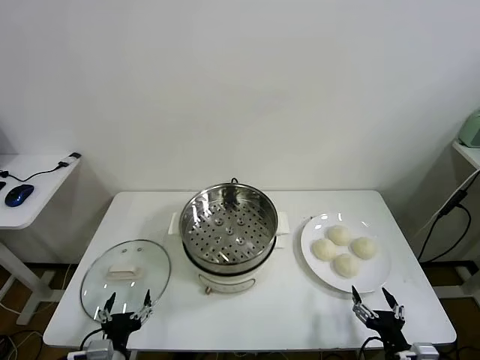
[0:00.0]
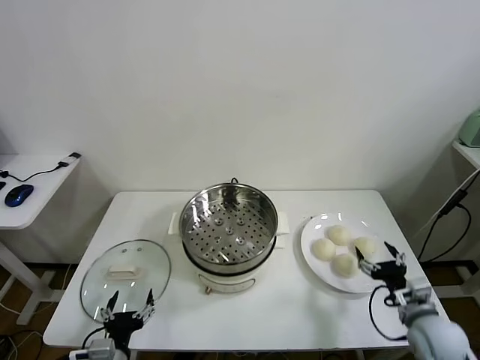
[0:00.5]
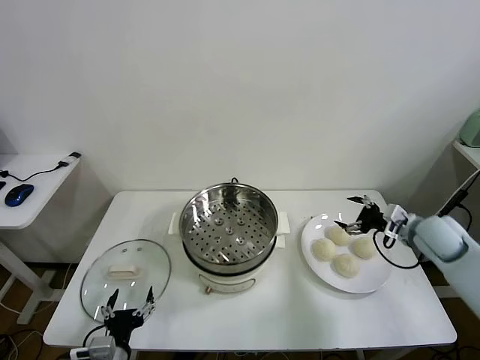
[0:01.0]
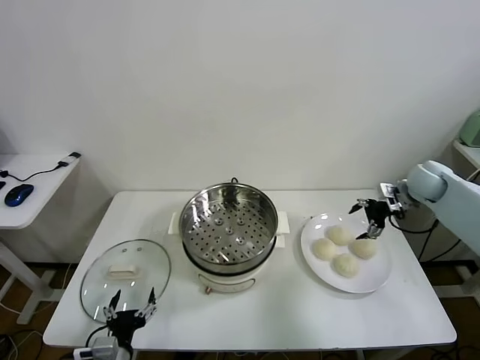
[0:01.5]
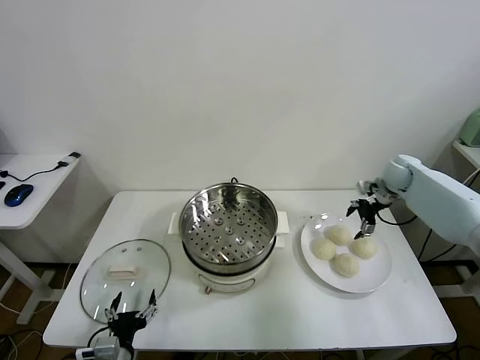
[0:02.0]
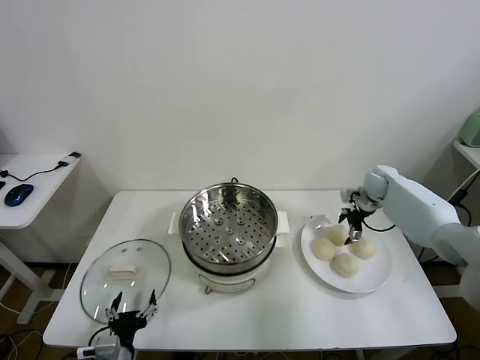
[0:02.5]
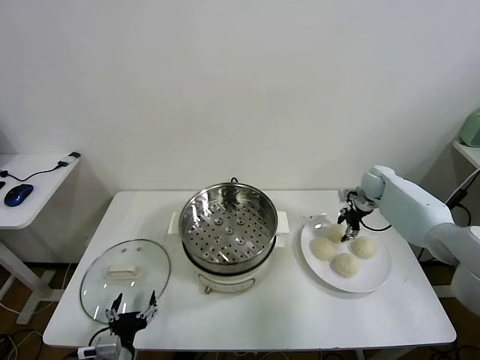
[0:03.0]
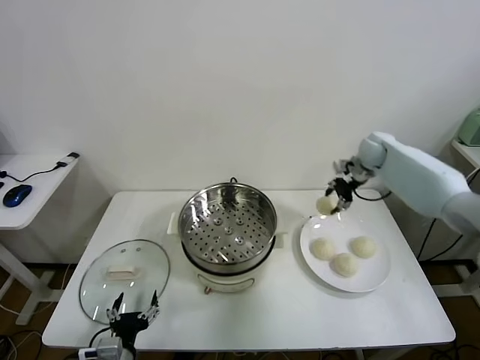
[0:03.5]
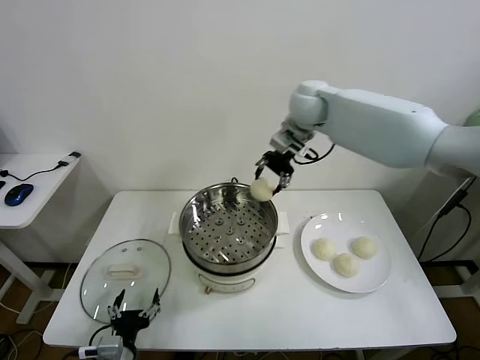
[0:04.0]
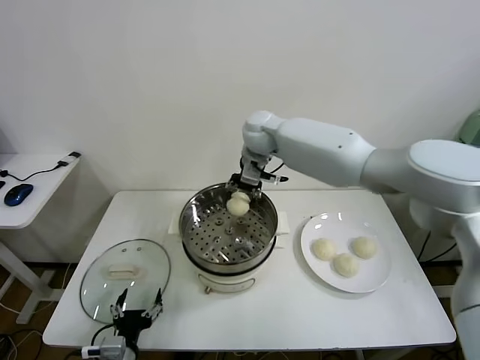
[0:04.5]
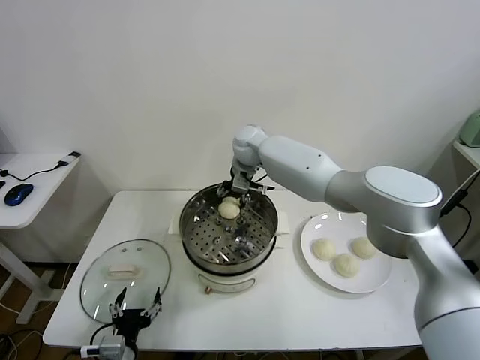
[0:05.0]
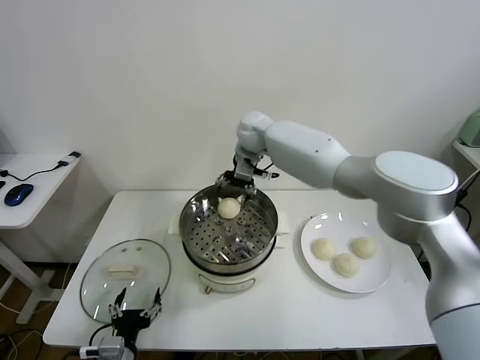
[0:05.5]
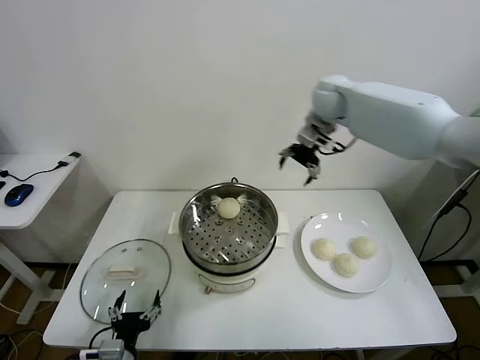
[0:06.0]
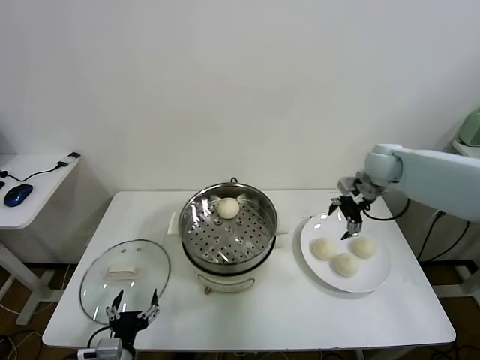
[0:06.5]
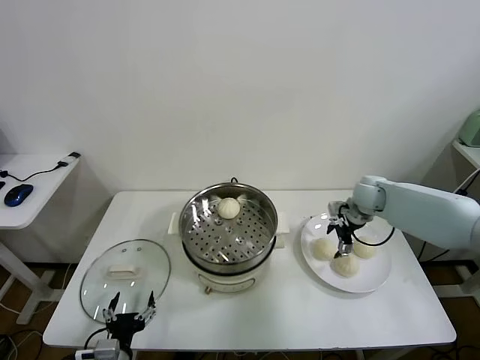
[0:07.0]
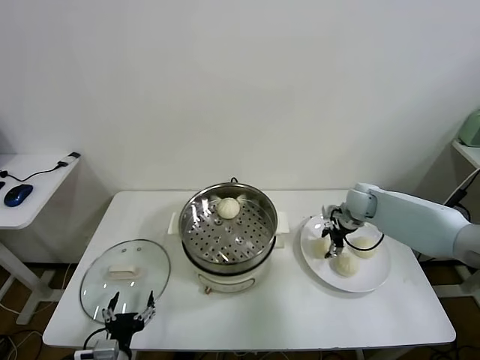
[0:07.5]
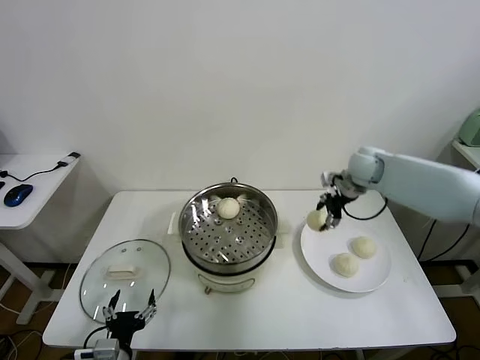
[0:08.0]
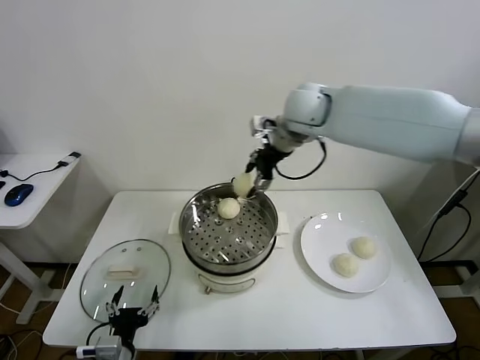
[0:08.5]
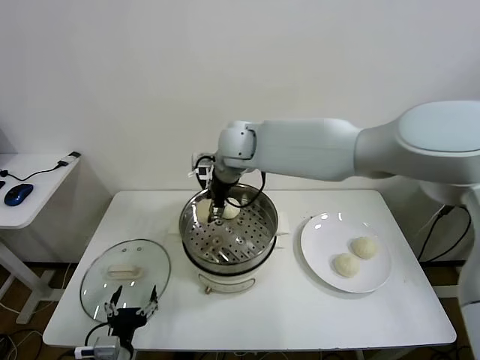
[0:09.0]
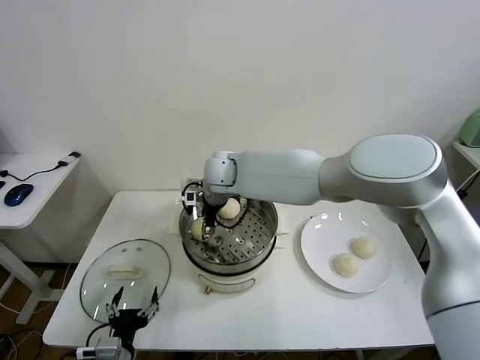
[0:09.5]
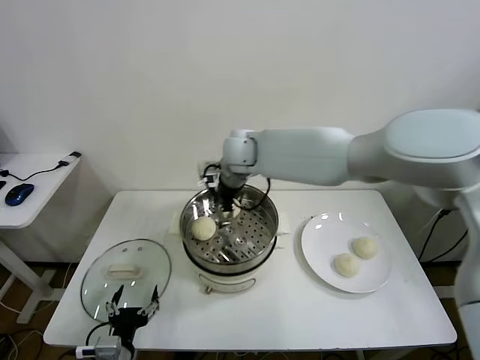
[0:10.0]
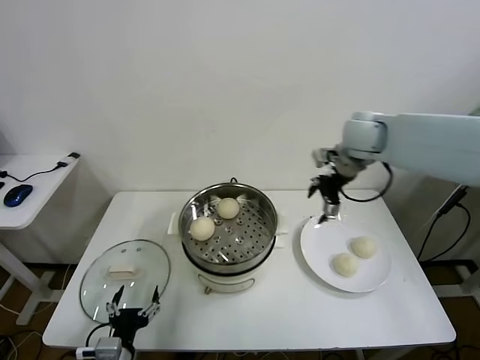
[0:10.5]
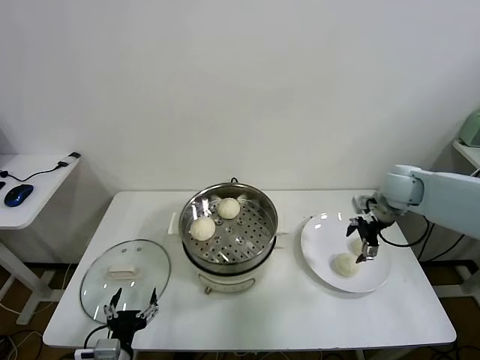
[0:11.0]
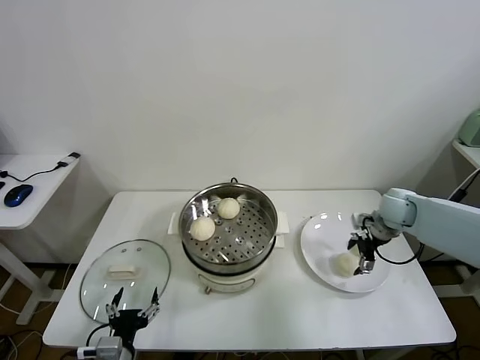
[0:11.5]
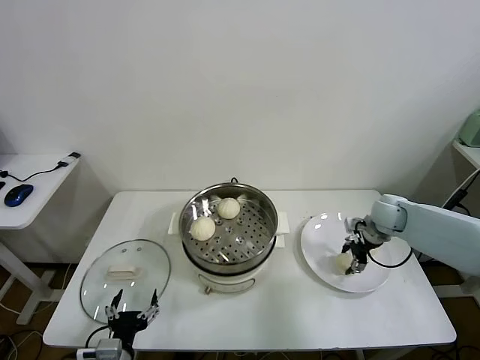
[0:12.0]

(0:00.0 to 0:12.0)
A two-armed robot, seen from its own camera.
Task of the whole recording: take steamed baozi put them in steamer.
Step, 0:00.0 - 0:03.0: Grasp the baozi in the plate with right gripper.
Step, 0:03.5 - 0:05.0: Place the baozi on the steamer with right gripper.
Step, 0:06.0 - 0:07.5: Grasp the baozi in the plate with right gripper.
Step, 0:08.0 - 0:09.5: Place the baozi on the steamer with right gripper.
0:02.0 - 0:04.0: The right gripper travels to the left and upward by roughly 35 cm, and closes.
0:04.0 - 0:06.0: The right gripper moves to the right, some 15 cm, and opens its fingers.
0:06.0 - 0:08.0: The right gripper goes roughly 10 cm downward, and closes.
0:08.0 - 0:10.0: The right gripper shifts some 25 cm to the left, and opens.
0:10.0 - 0:12.0: The right gripper shifts roughly 40 cm to the right and downward, and closes.

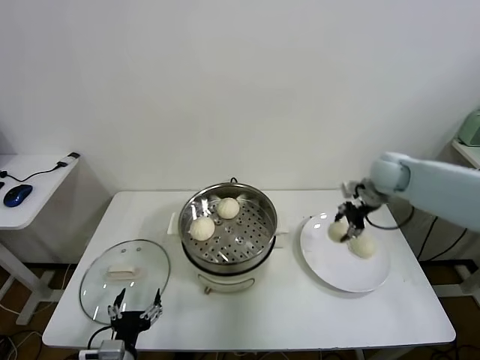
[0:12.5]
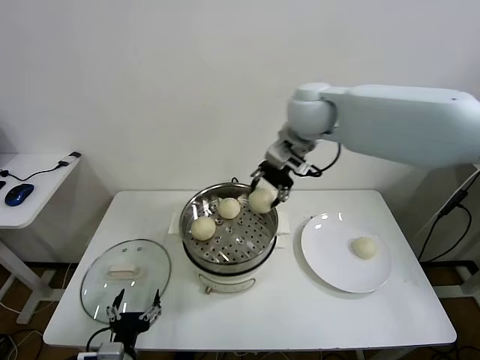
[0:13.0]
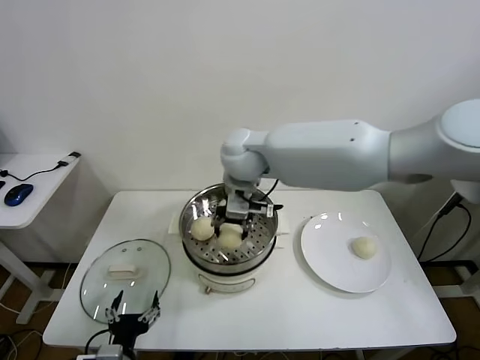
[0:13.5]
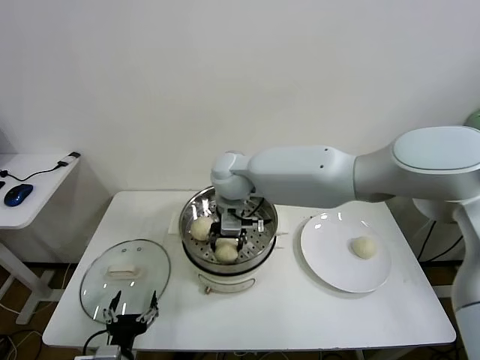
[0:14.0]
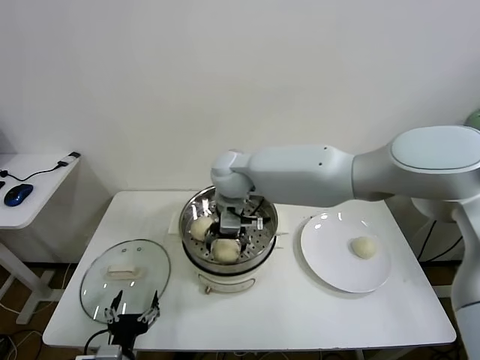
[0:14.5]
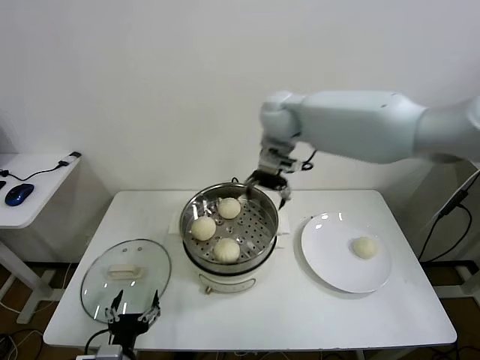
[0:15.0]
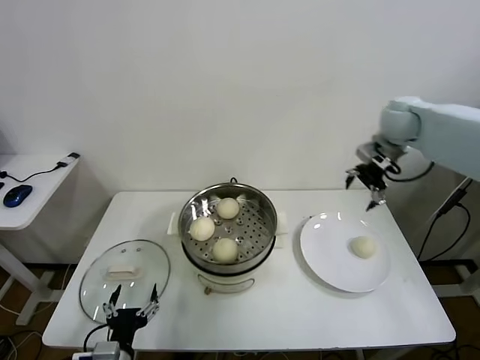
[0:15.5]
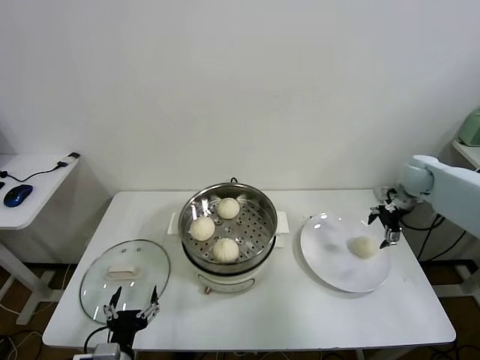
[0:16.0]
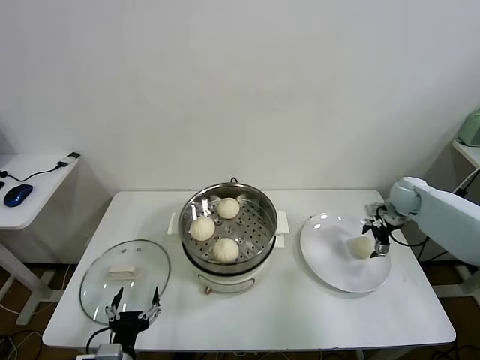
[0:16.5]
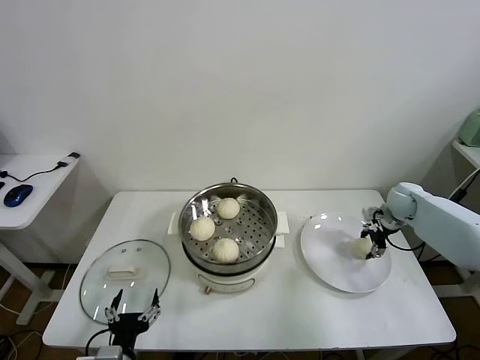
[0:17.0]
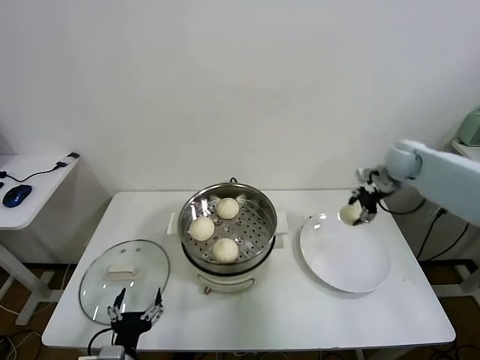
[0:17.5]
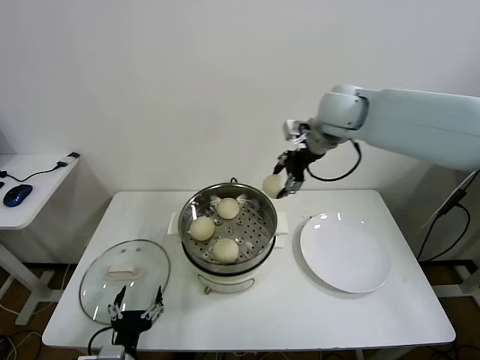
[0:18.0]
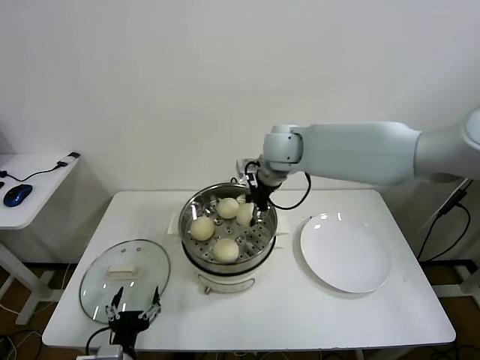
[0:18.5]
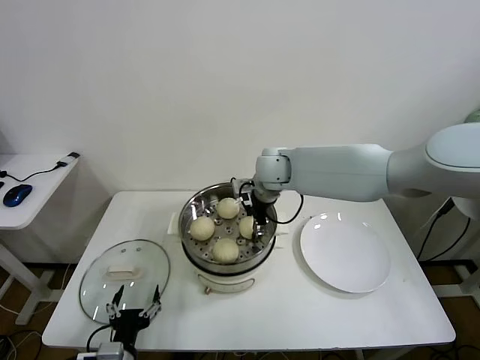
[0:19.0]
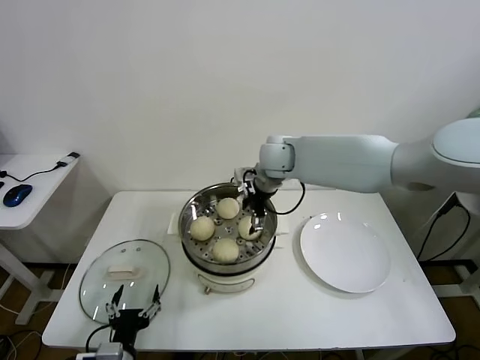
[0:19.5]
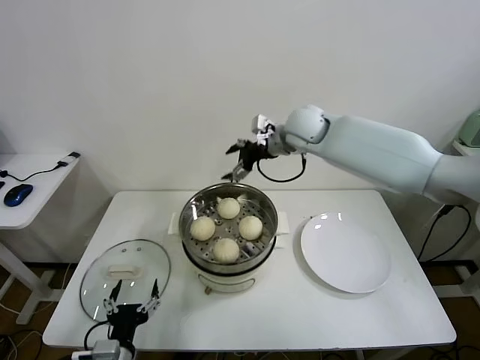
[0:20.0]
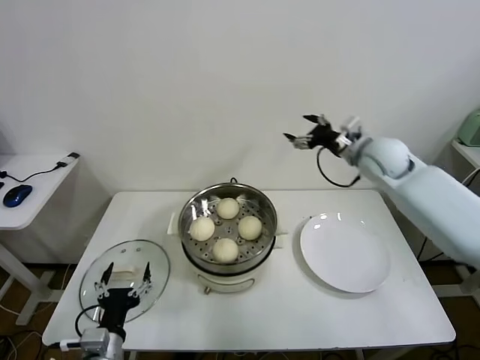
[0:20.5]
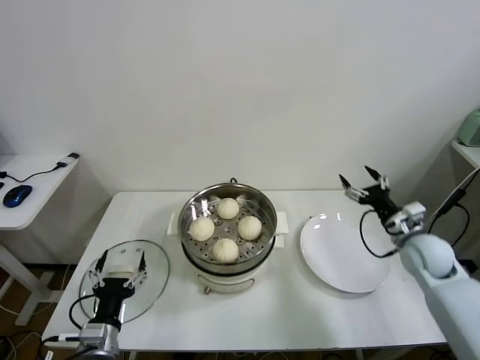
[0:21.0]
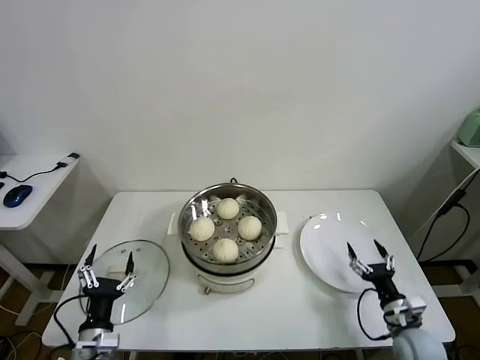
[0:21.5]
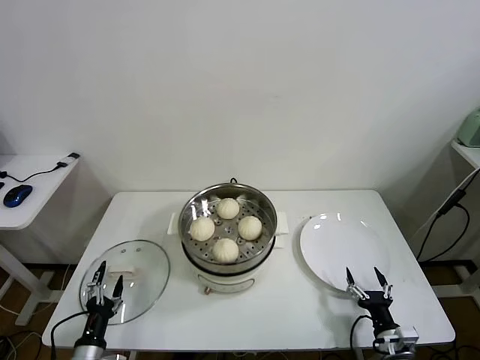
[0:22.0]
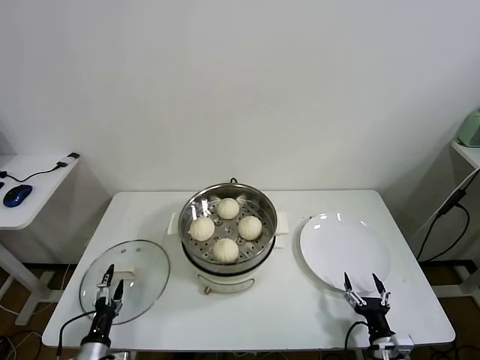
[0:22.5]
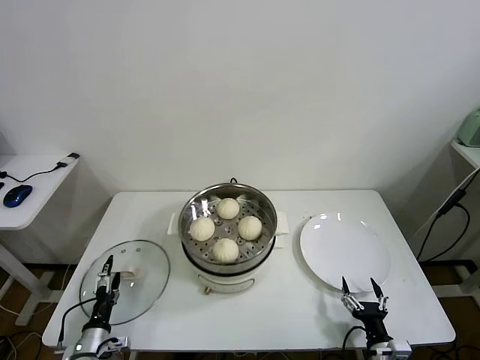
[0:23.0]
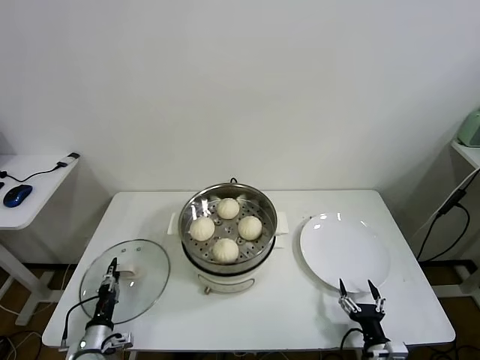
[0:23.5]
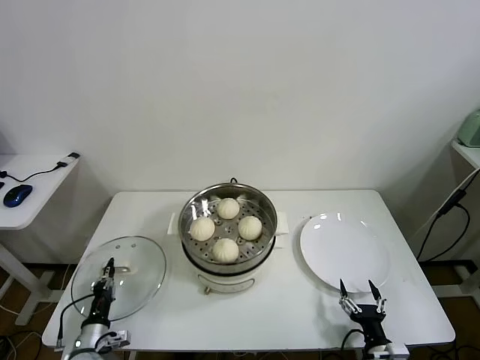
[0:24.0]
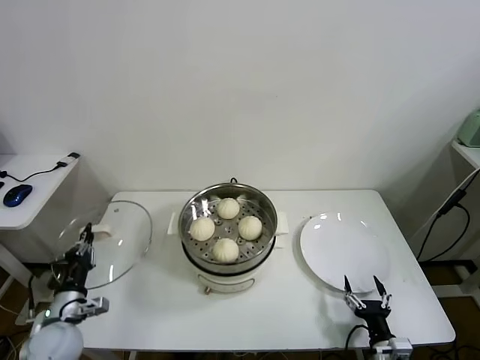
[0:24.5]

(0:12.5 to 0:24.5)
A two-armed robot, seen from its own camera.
Task of the whole recording: take steamed baozi put them in steamer.
Step, 0:12.5 - 0:14.5: Place the baozi on the steamer with right gripper.
Step, 0:15.0 - 0:17.0: Grasp the baozi in the plate with right gripper.
Step, 0:17.5 - 0:19.0: Place the baozi on the steamer with right gripper.
Step, 0:20.0 - 0:23.5: Grasp the pot lid with left gripper.
0:12.5 - 0:14.5: The right gripper heads to the left, covering about 35 cm, and opens.
0:14.5 - 0:16.5: The right gripper travels to the right by about 50 cm.
0:16.5 - 0:18.5: The right gripper moves to the left and upward, about 40 cm, and closes.
0:18.5 - 0:20.5: The right gripper is displaced to the right by some 20 cm, and opens.
0:20.5 - 0:22.5: The left gripper is displaced downward and to the left by approximately 15 cm; the right gripper is displaced downward and backward by some 50 cm.
0:22.5 - 0:24.5: The left gripper moves upward and forward, some 10 cm, and closes up.

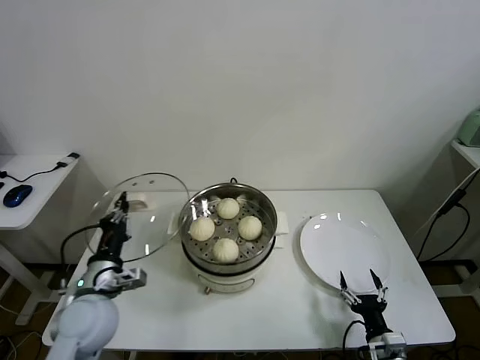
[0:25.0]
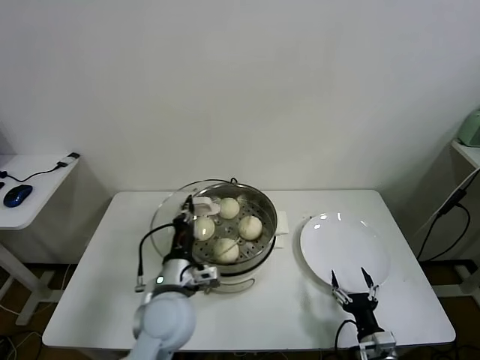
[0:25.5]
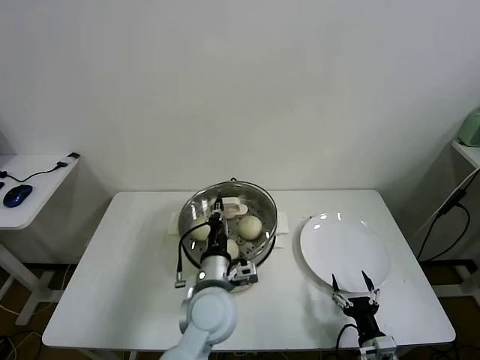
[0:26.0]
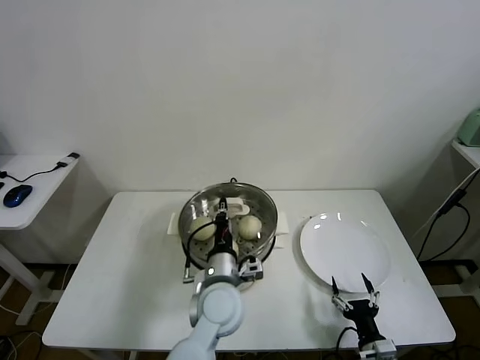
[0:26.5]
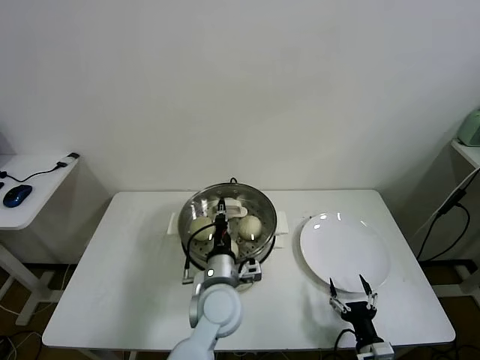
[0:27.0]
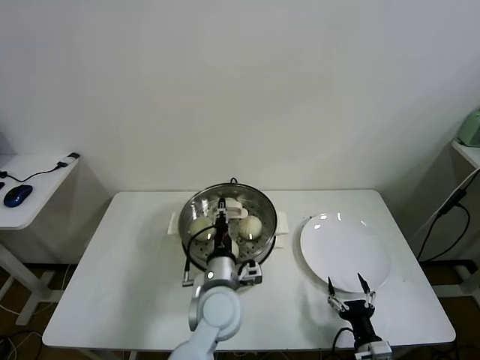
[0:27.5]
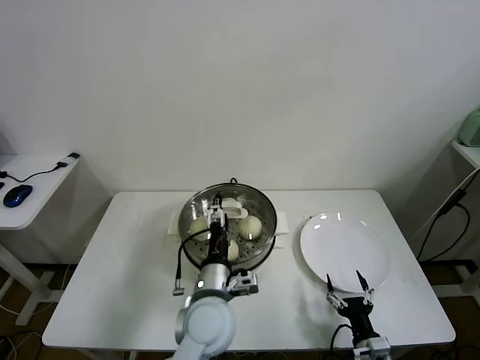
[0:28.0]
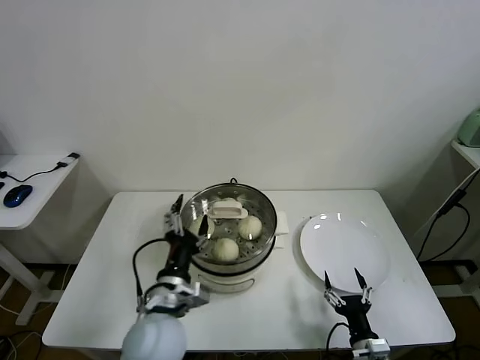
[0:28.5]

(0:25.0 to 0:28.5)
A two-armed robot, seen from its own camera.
Task of the whole recording: take steamed baozi put them in steamer.
Step, 0:25.0 - 0:27.5: Place the pot lid on the steamer with left gripper.
0:25.0 - 0:27.0: The left gripper is displaced to the right by about 25 cm.
0:27.0 - 0:28.5: The left gripper heads to the left and backward, covering some 10 cm, and opens up.
